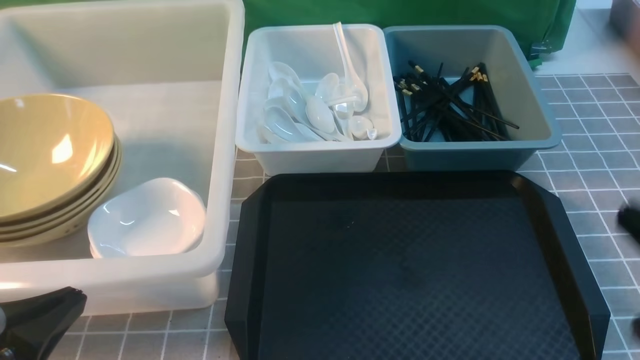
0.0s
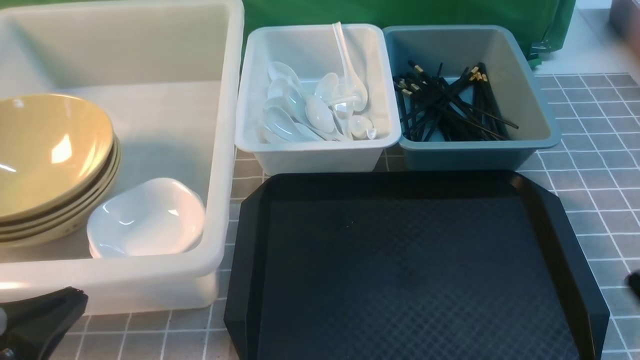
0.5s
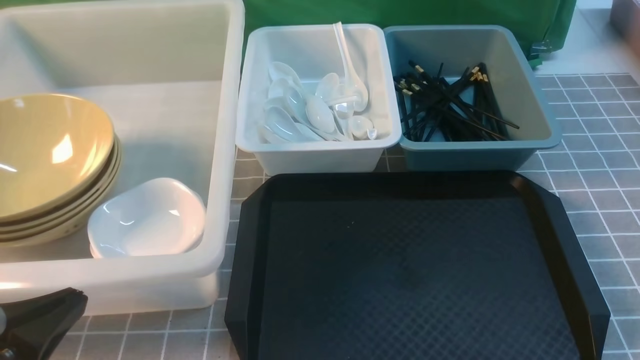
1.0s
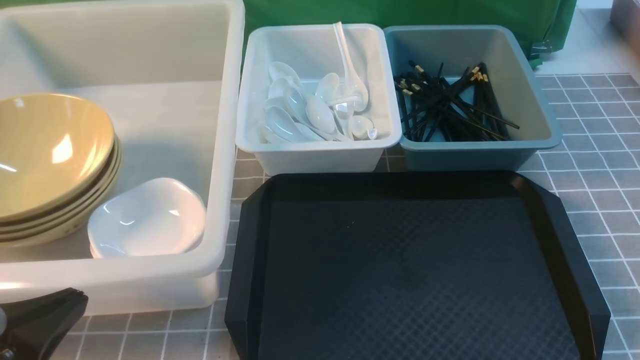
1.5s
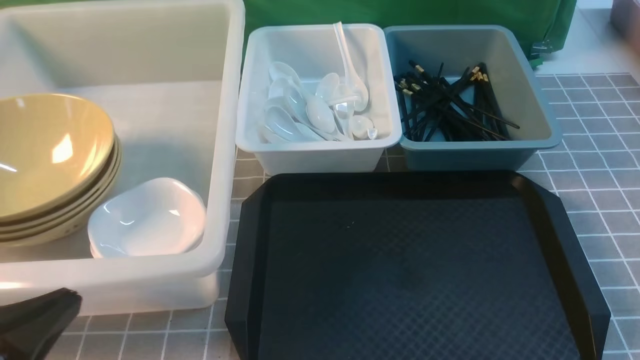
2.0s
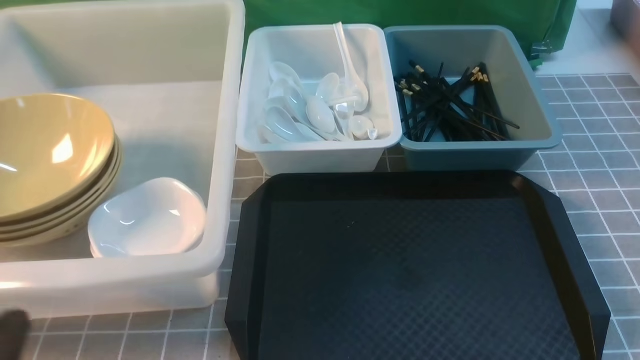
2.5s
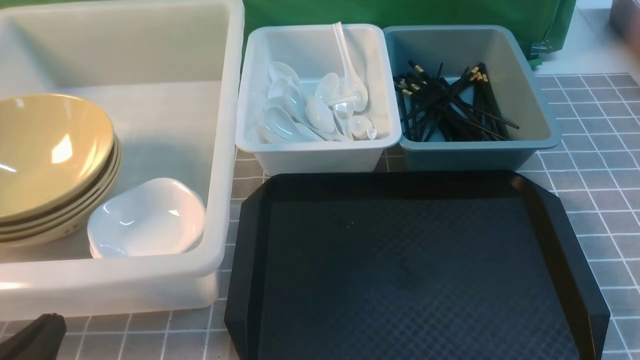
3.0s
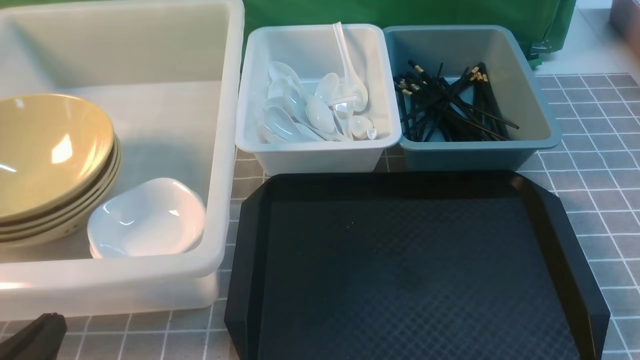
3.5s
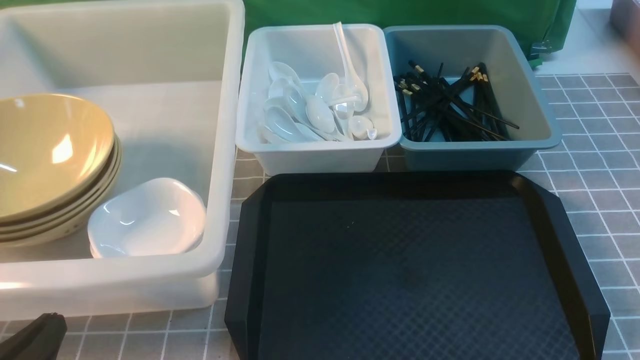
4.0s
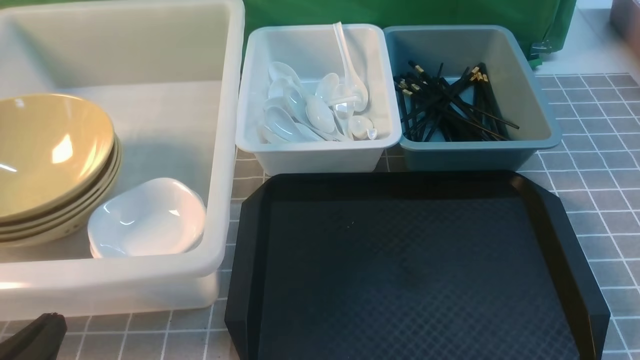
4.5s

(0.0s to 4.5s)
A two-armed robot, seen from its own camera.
Task of the whole recording: on grey table put chopsticks spoon bowls plates into blue grey white boxes.
2.0s - 4.5s: The left gripper shifts about 10 cm downward.
